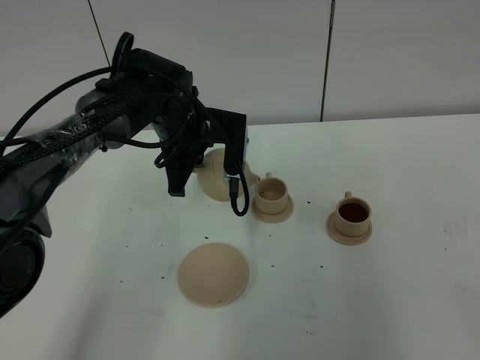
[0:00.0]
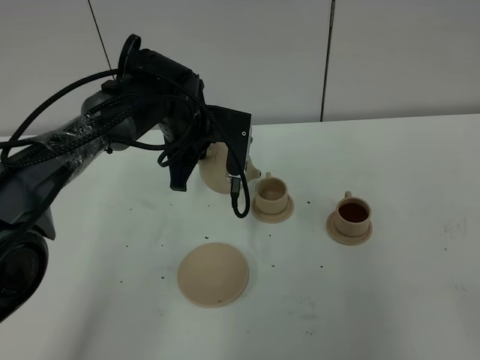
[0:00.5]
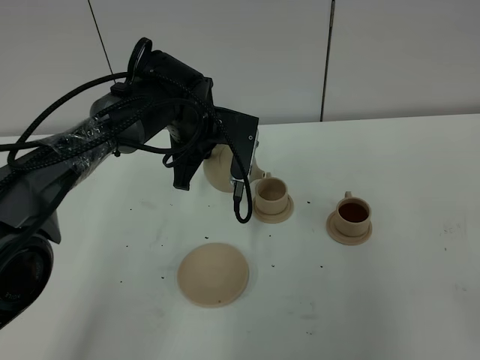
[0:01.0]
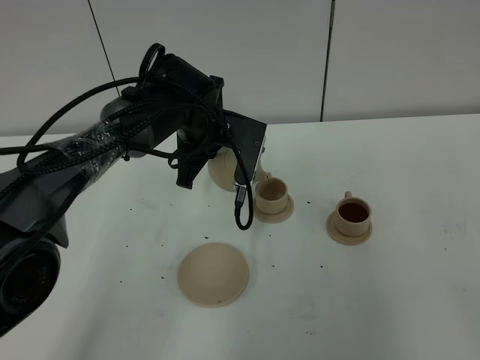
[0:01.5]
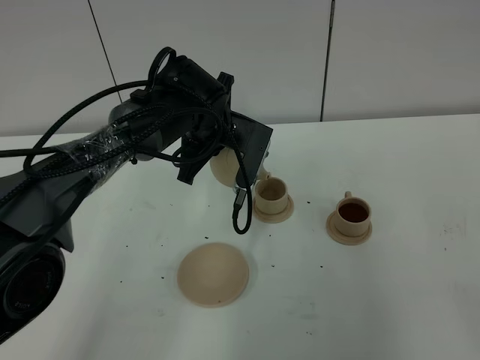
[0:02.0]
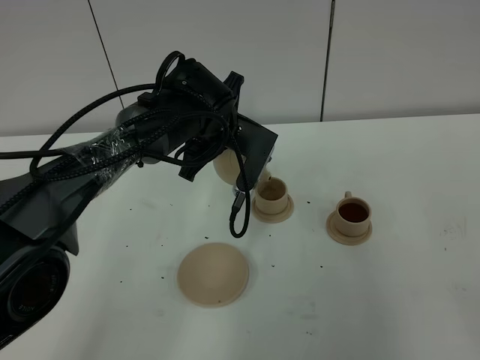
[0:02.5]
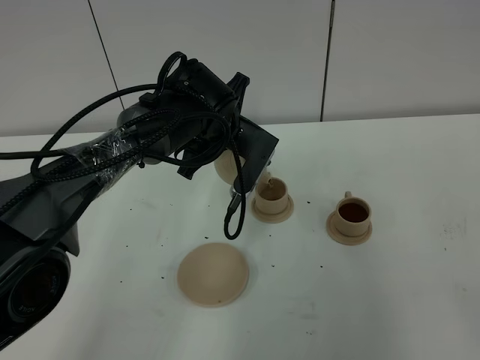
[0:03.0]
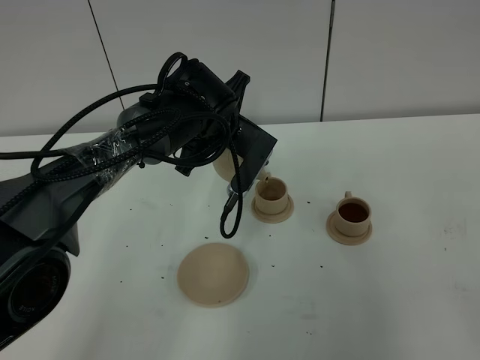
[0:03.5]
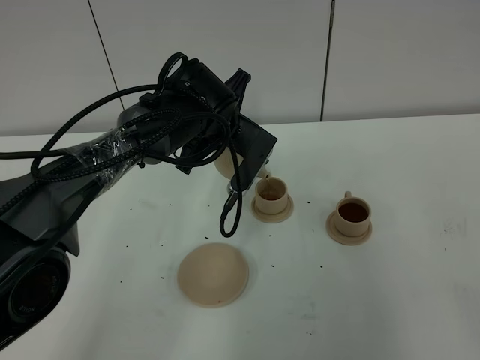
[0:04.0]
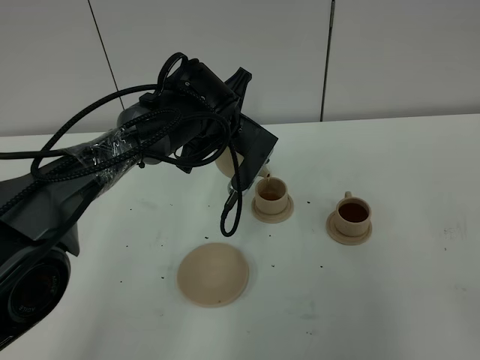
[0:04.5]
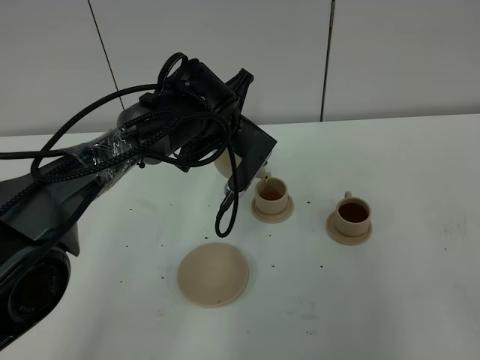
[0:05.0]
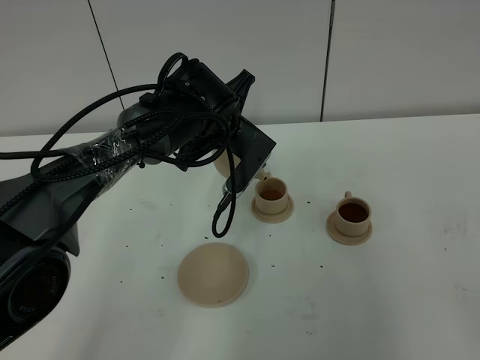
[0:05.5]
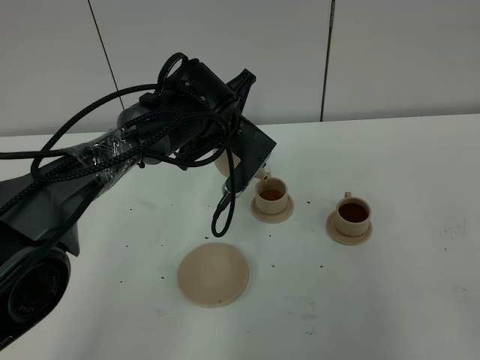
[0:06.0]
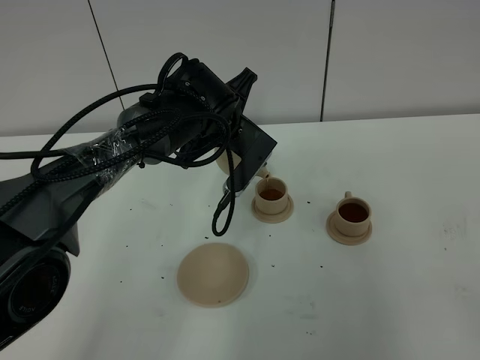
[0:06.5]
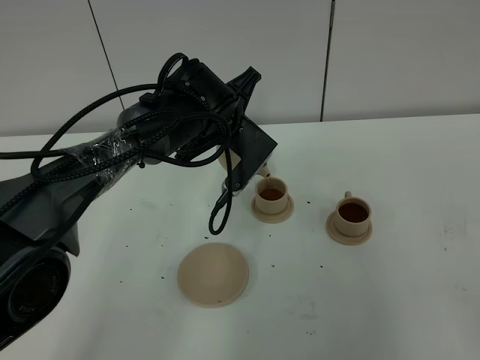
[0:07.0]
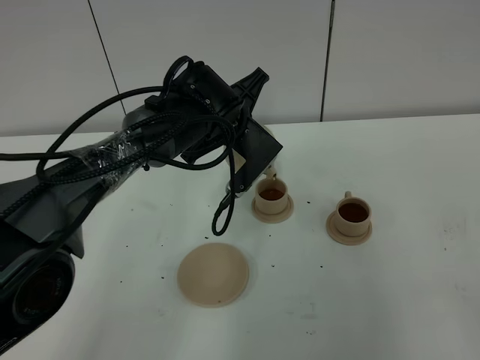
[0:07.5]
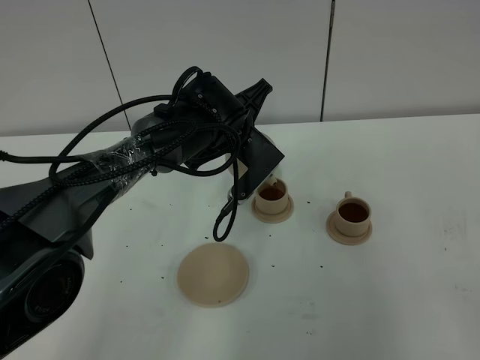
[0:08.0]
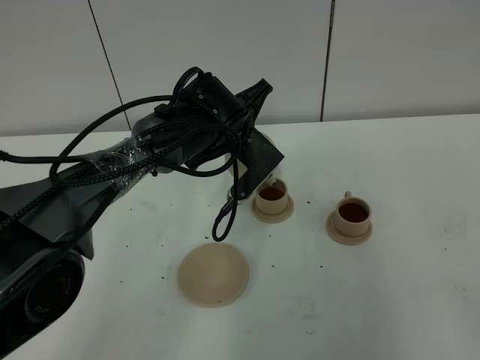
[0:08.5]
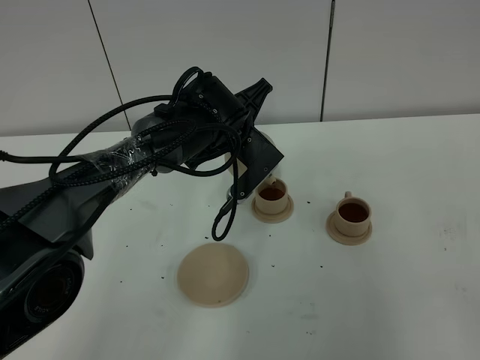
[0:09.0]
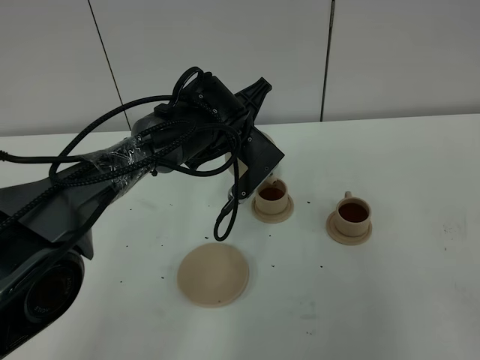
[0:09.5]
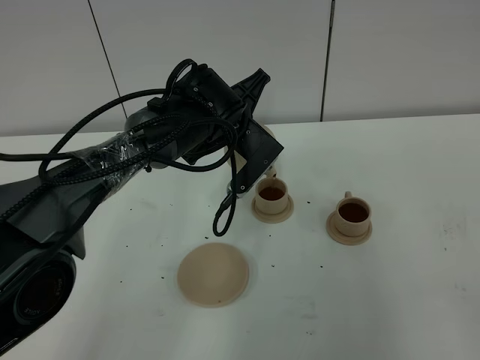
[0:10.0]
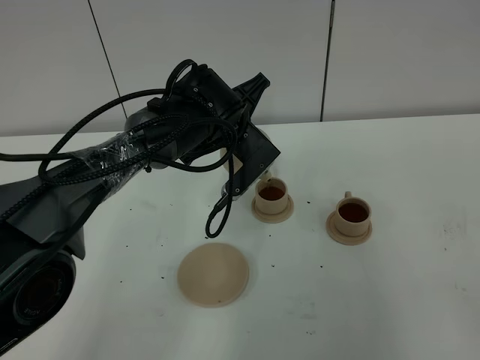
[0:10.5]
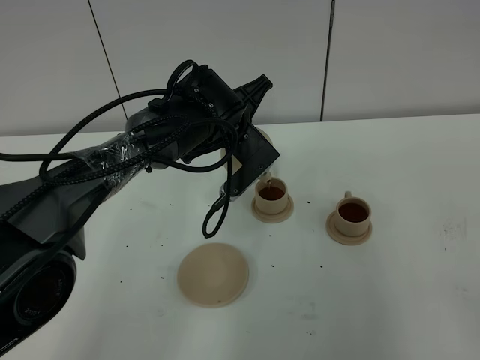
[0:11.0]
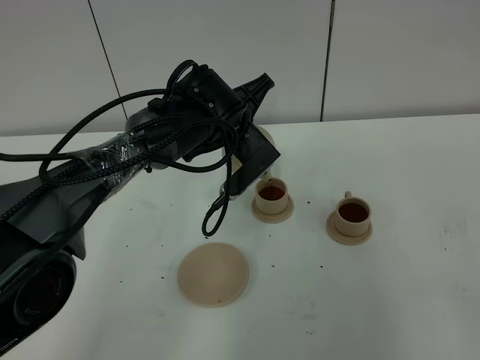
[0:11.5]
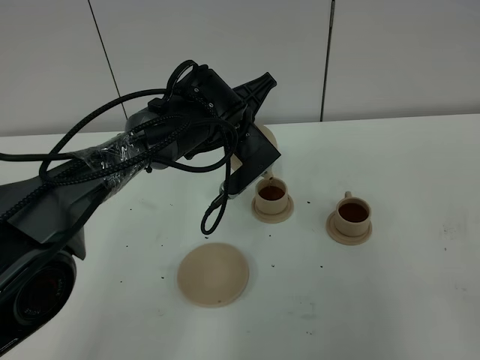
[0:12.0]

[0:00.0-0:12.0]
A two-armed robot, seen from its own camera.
Task of the whole recording: grasp the brown teapot and pour the tea into the two brown teacups one by one, put the brown teapot back in its original place.
0:02.0 to 0:06.0: The grippers make only small movements.
0:06.0 to 0:12.0: The grippers move only a little.

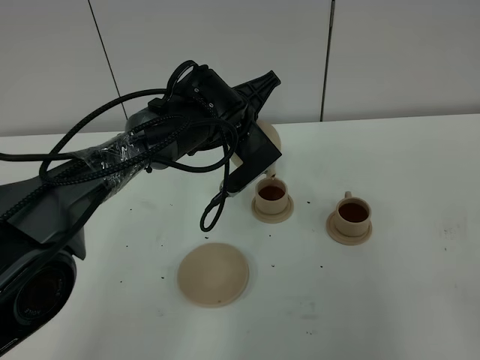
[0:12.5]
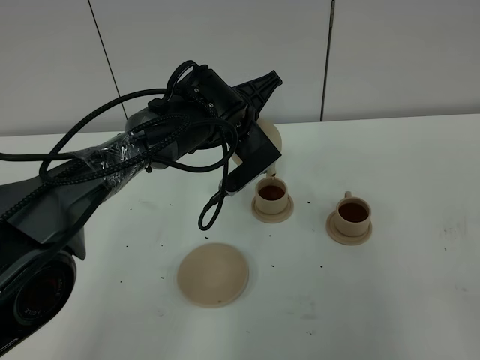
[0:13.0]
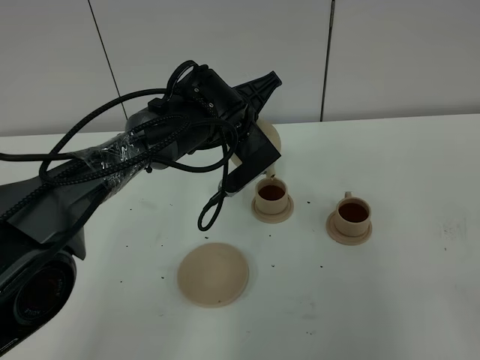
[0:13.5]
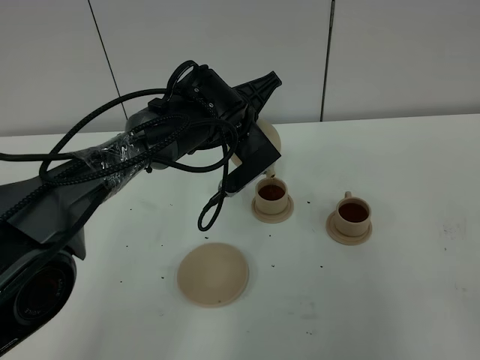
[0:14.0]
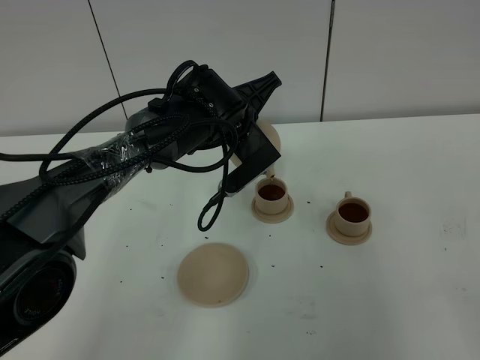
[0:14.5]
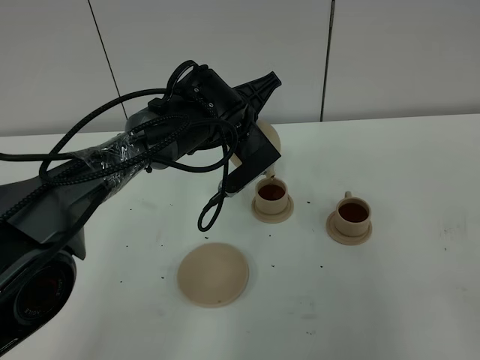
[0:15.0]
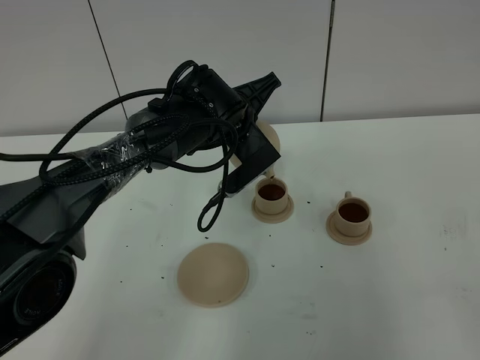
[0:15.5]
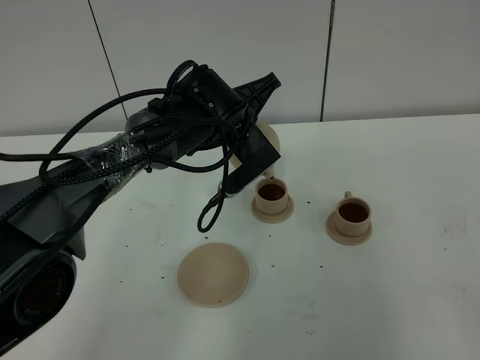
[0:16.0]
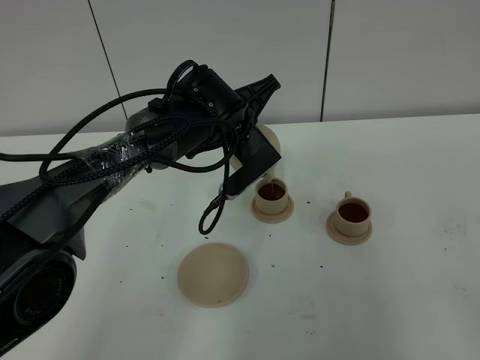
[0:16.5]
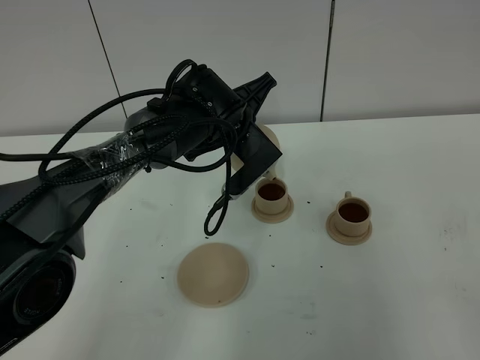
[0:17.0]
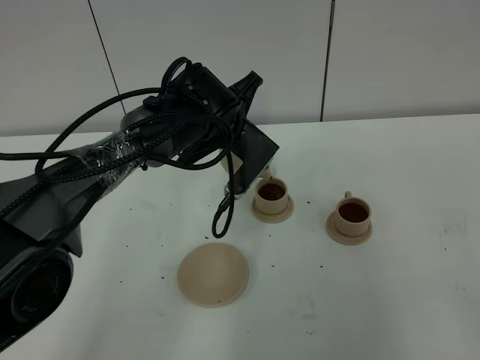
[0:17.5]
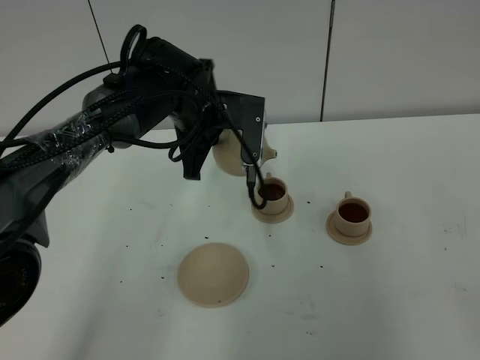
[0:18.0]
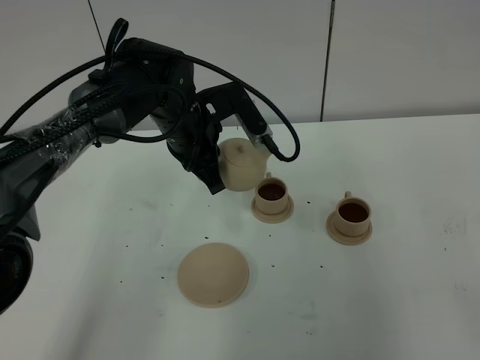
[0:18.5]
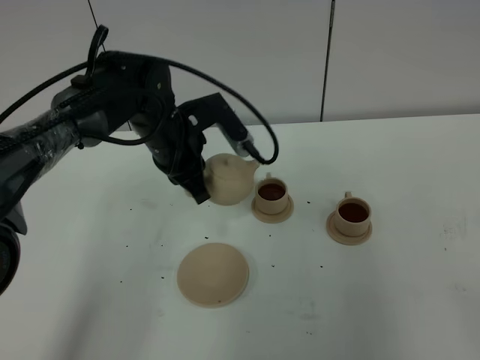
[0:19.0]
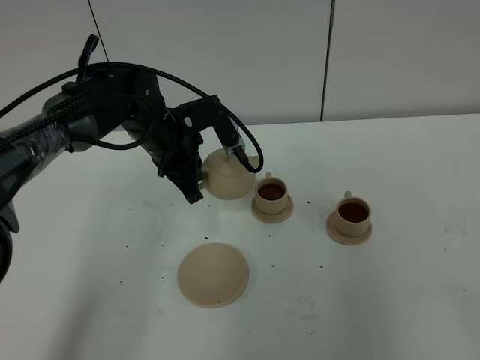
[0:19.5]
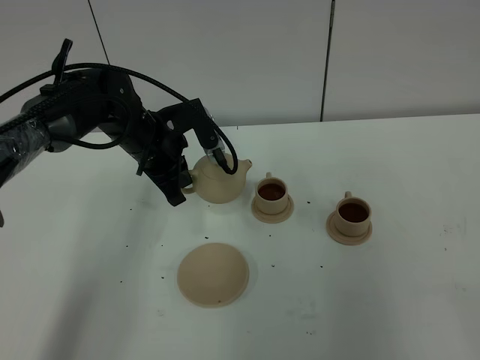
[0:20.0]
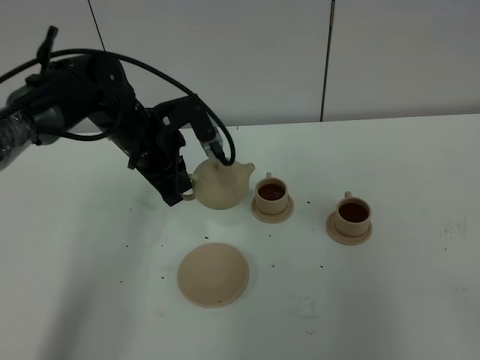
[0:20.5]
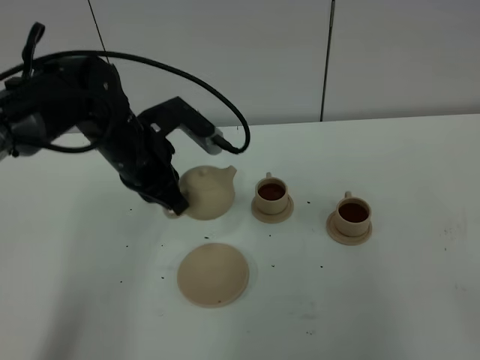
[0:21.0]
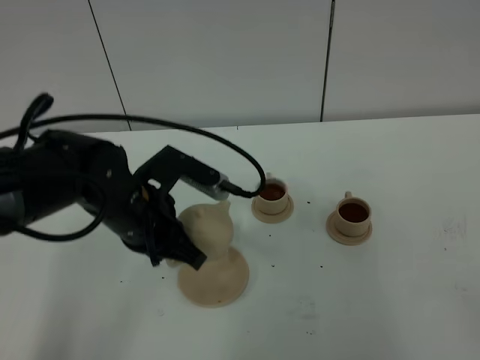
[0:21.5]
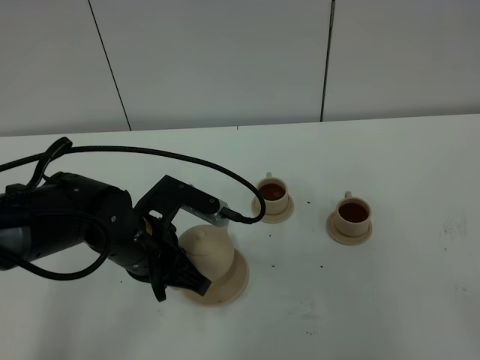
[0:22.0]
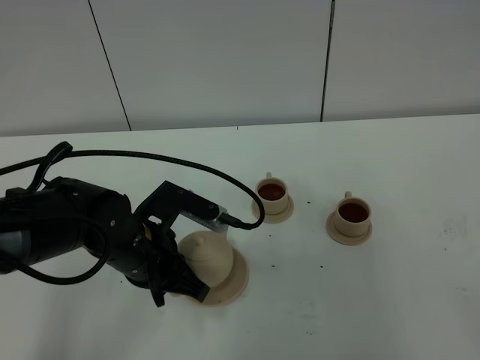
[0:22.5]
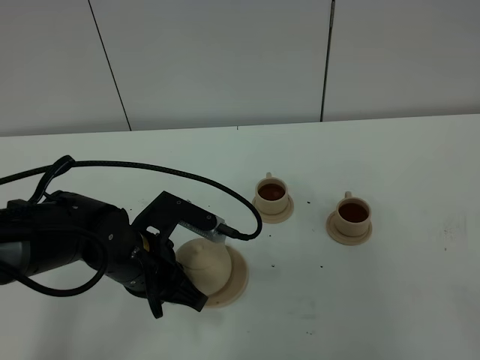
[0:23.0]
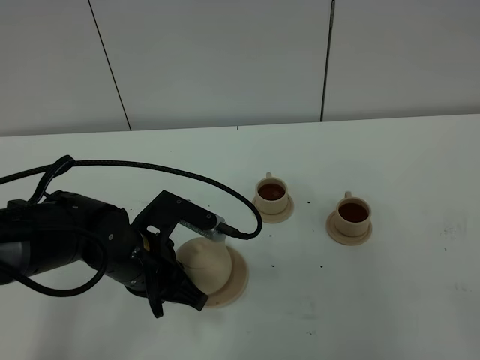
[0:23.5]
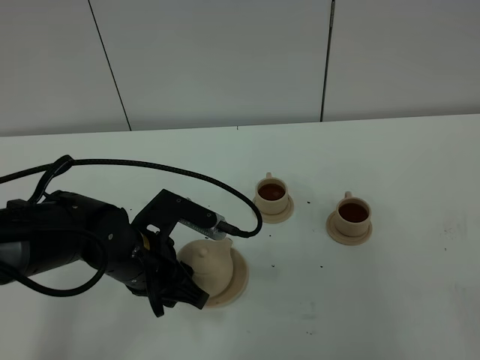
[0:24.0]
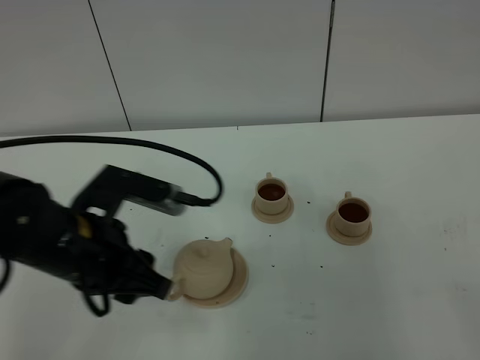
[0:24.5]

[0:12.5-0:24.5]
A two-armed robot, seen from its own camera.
Task of the whole recording: grasp the brown teapot and pour the tea into the two brown teacups one by one, put the brown teapot back in its original place.
0:12.5 to 0:16.5: Neither gripper changes place.
0:16.5 to 0:18.5: The left gripper is displaced to the left by some 5 cm.
0:18.5 to 0:20.5: The left gripper shifts about 5 cm to the left.
0:20.5 to 0:22.5: The left gripper goes approximately 15 cm backward.
0:22.5 to 0:24.5: The left gripper moves upward, roughly 10 cm, and opens.

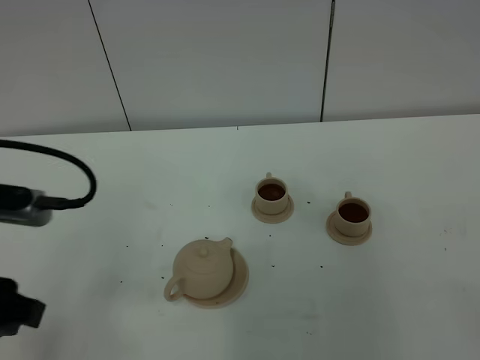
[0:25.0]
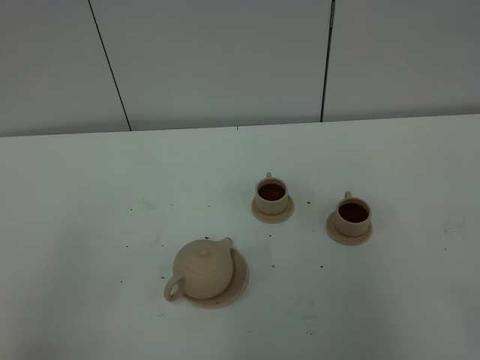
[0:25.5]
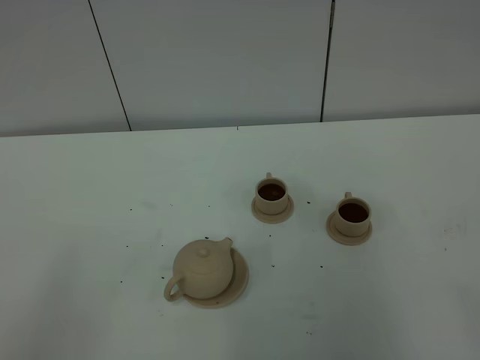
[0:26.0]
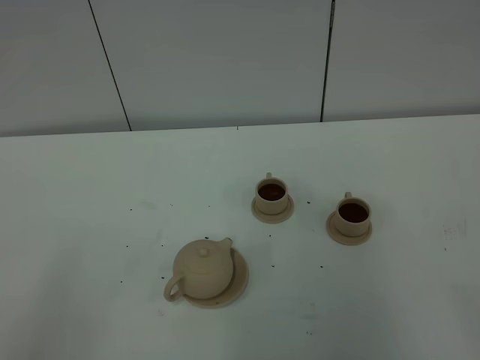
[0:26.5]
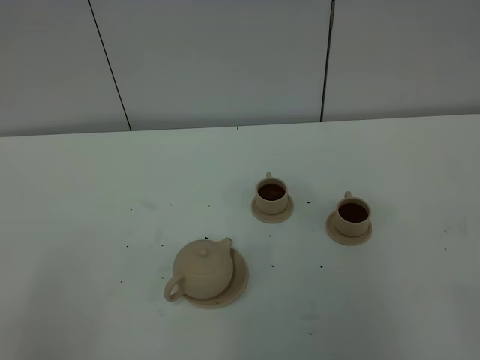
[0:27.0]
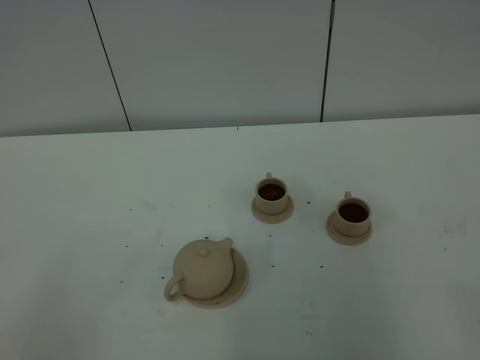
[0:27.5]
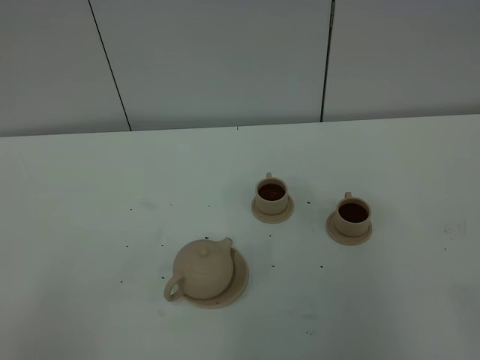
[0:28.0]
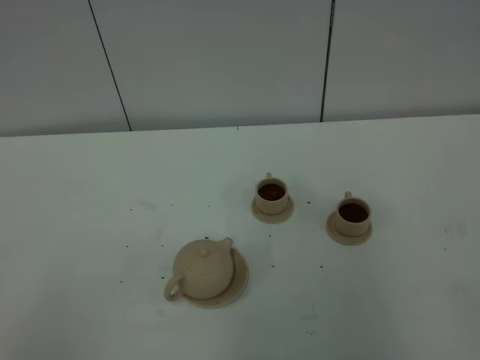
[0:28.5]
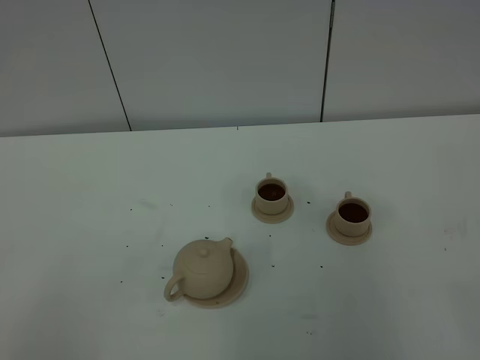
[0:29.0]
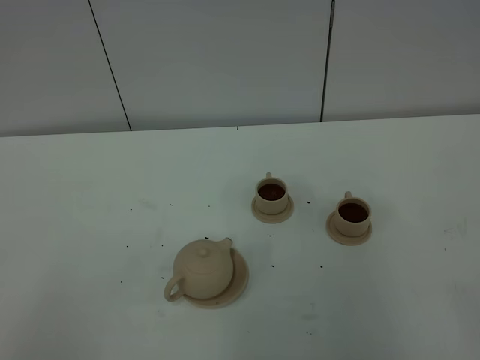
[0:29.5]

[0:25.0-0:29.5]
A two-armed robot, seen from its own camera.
Task of the whole recording: grasp the brown teapot and pour the tea into the two brown teacups one by one, put the brown teapot back in its original place.
0:25.0 to 0:27.0: The left gripper moves backward, approximately 15 cm.
